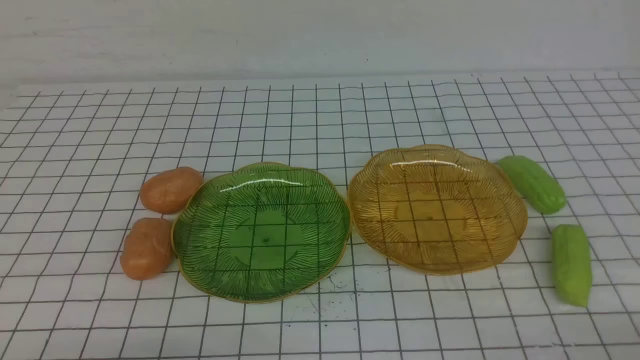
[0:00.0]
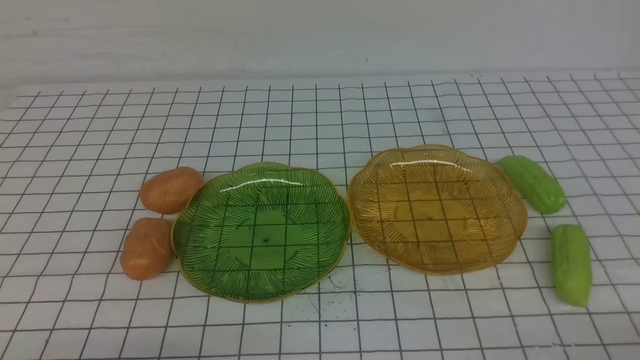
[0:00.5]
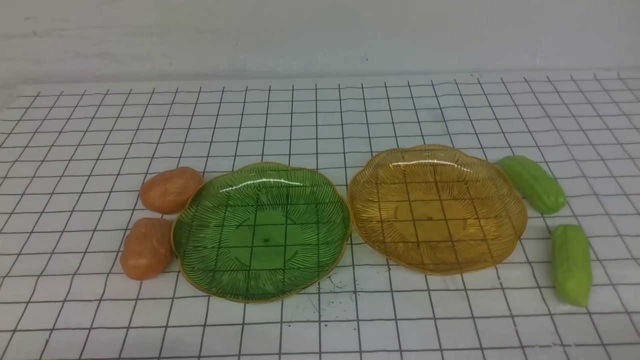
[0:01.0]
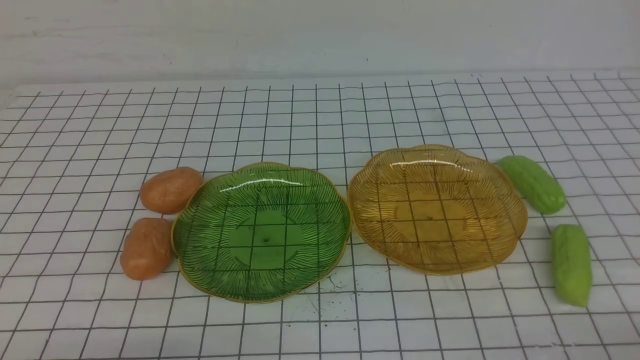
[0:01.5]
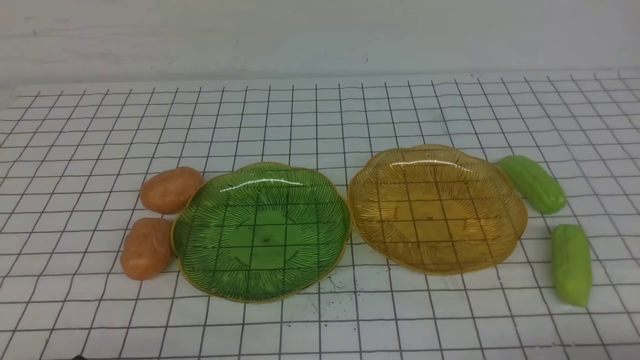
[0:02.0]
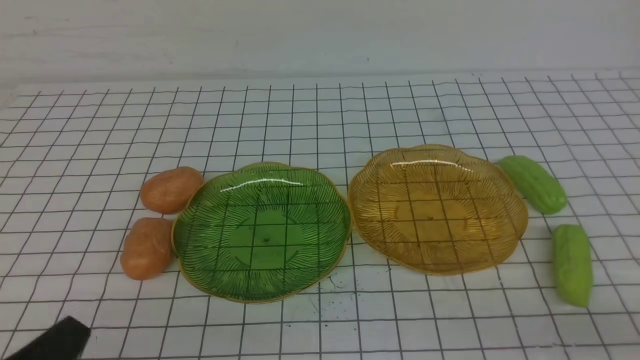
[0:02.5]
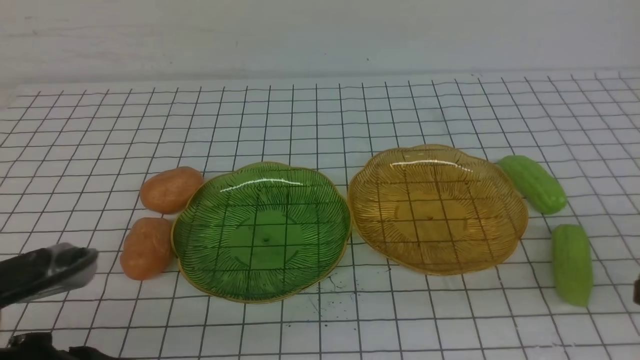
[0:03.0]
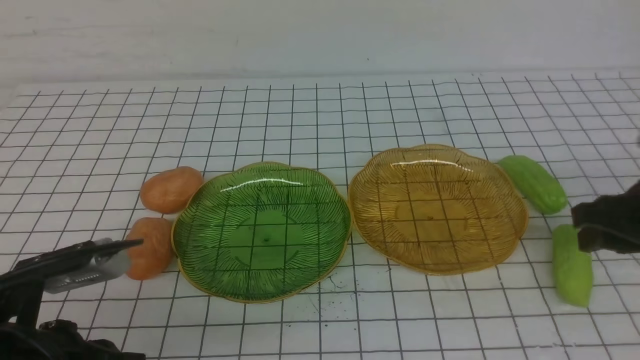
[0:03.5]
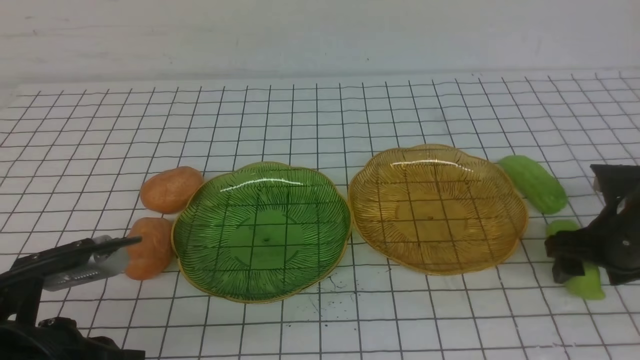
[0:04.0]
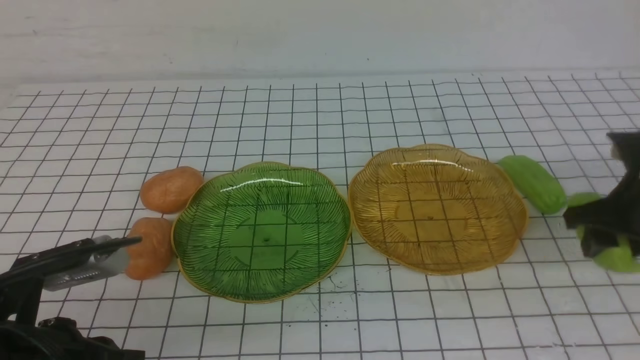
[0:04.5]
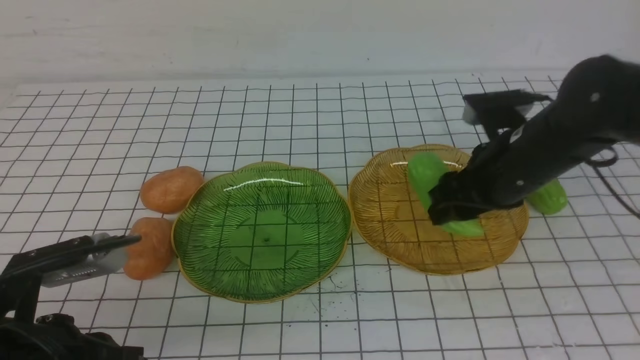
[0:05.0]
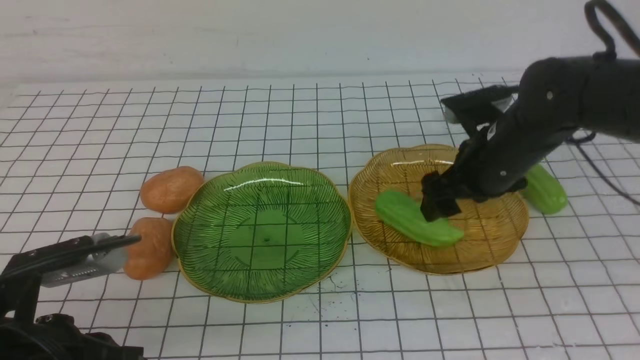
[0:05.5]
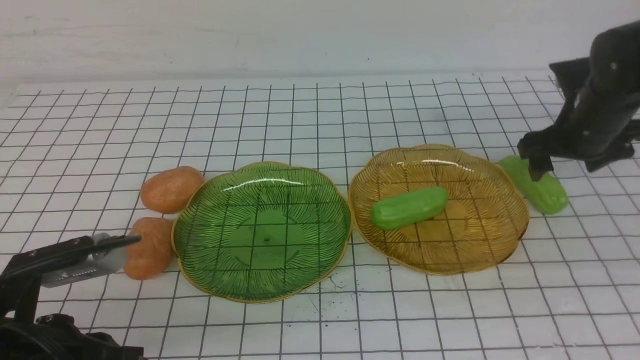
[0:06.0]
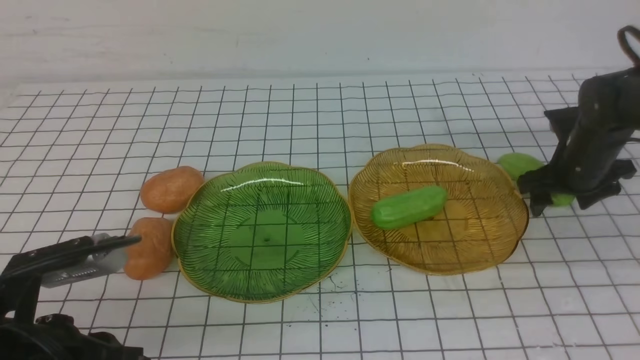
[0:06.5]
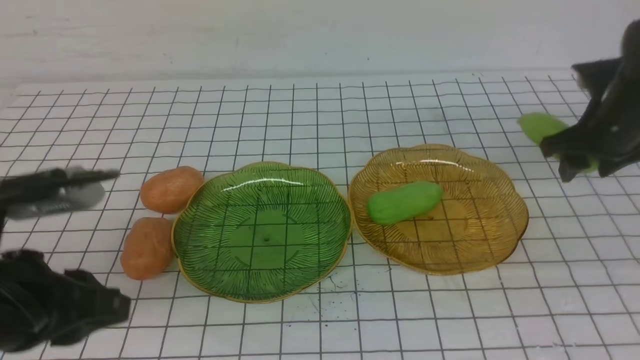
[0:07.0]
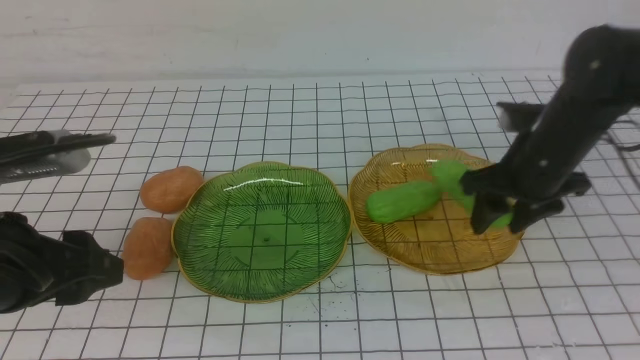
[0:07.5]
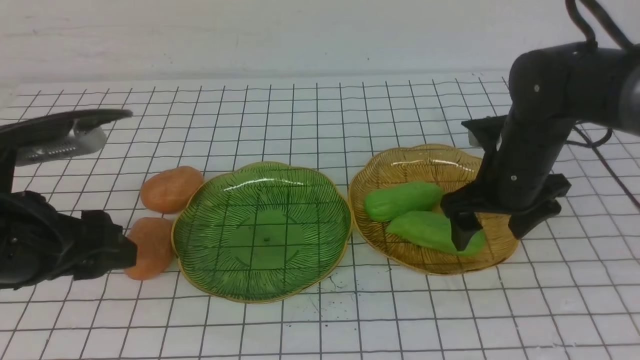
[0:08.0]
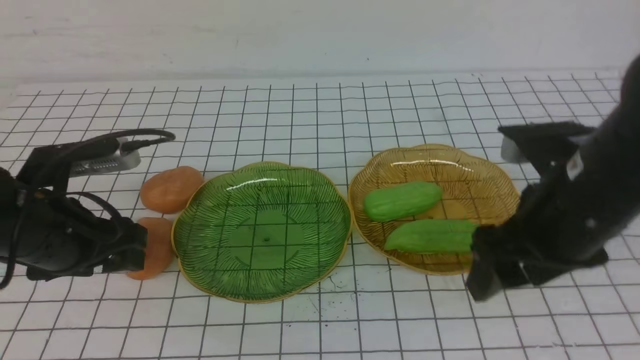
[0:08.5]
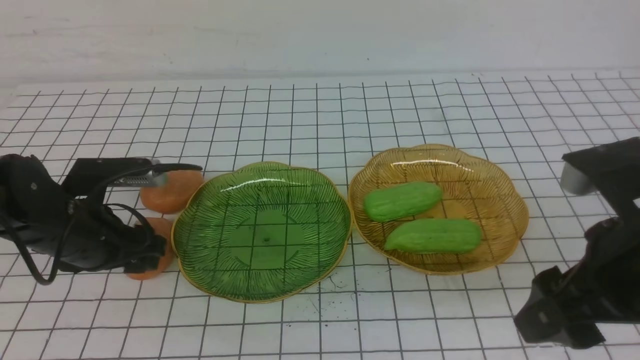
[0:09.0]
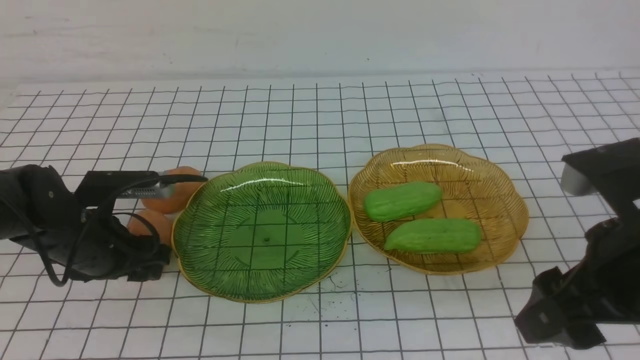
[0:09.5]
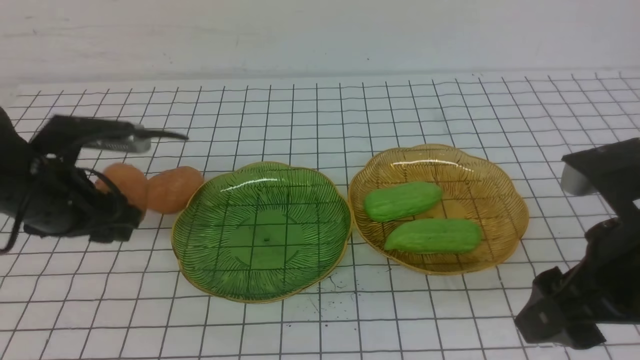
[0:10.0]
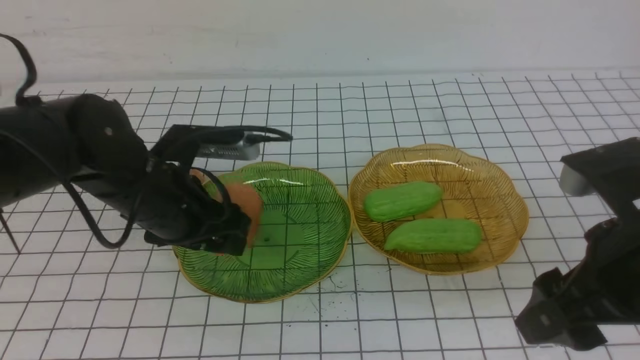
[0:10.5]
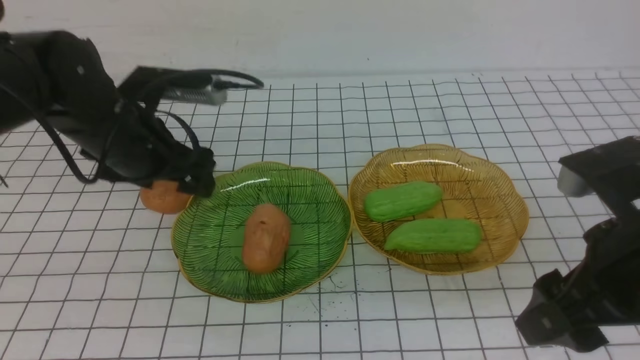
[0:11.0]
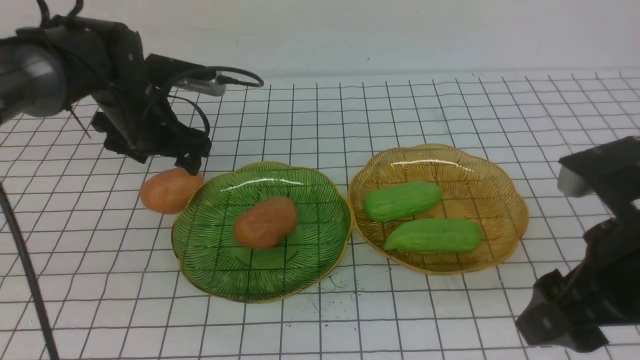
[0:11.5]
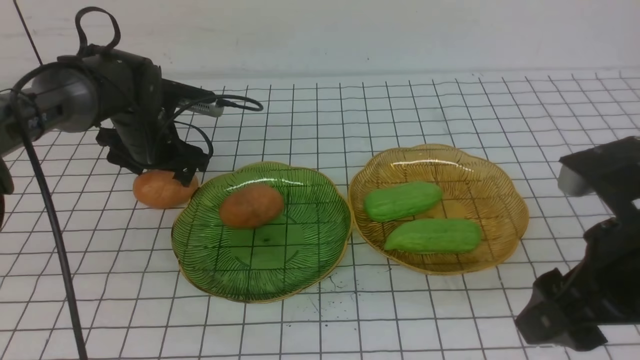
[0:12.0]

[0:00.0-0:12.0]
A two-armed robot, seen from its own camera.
Step, 0:00.0 to 0:07.5: use the left arm to grab a chayote and put it into the left plate.
Step, 0:08.0 to 0:10.5: Grab a potato with your left arm and put it on the left plate.
0:02.0 to 0:04.0: The right gripper travels forward by some 25 cm, and opens up. Meanwhile the left gripper goes some 10 cm forward and upward.
0:04.0 to 0:06.0: The right gripper travels forward by approximately 10 cm, and travels to the left and back again, roughly 10 cm each way.
0:06.0 to 0:08.0: The right gripper travels to the left and backward by about 10 cm, and closes and opens again; the left gripper goes roughly 10 cm forward and upward, and opens its fingers.
0:08.0 to 0:10.0: The right gripper shifts some 20 cm backward and upward; the left gripper travels forward by some 10 cm.
0:10.0 to 0:12.0: The left gripper heads forward, covering about 15 cm.

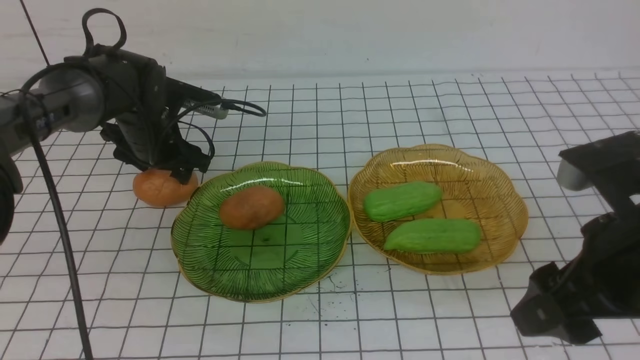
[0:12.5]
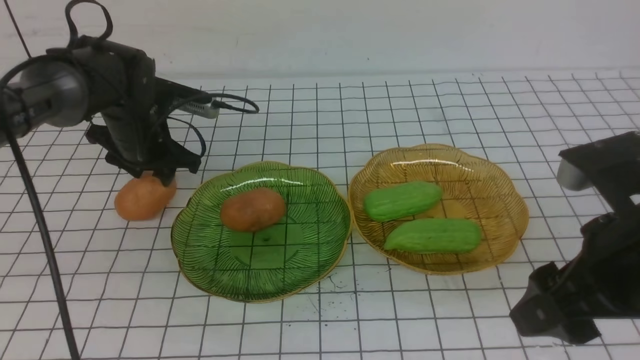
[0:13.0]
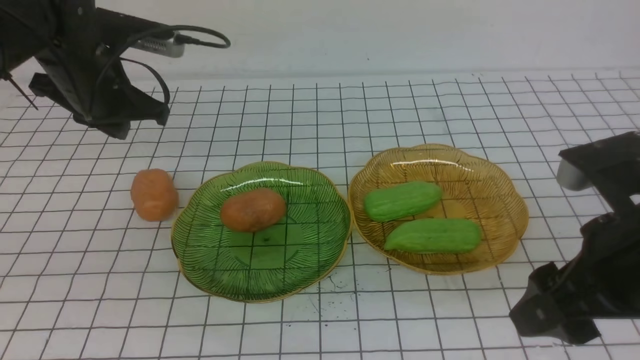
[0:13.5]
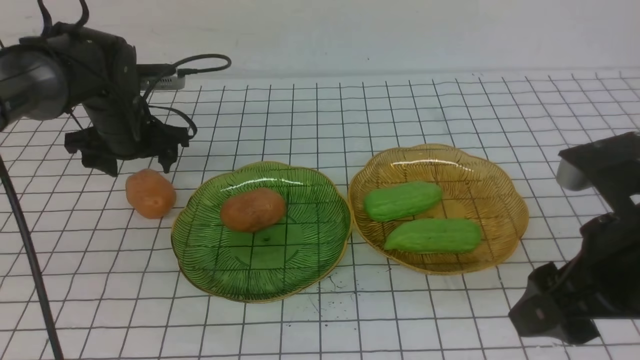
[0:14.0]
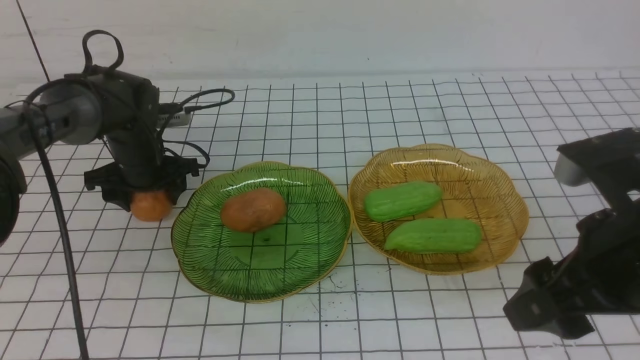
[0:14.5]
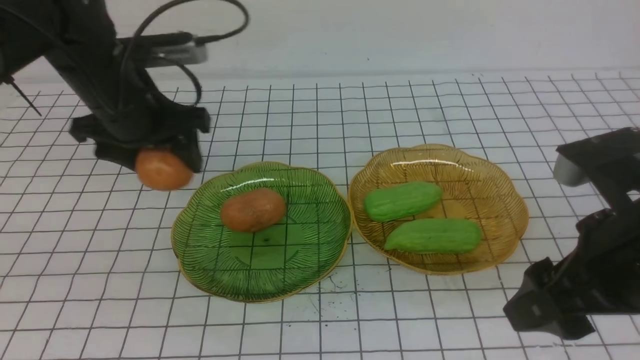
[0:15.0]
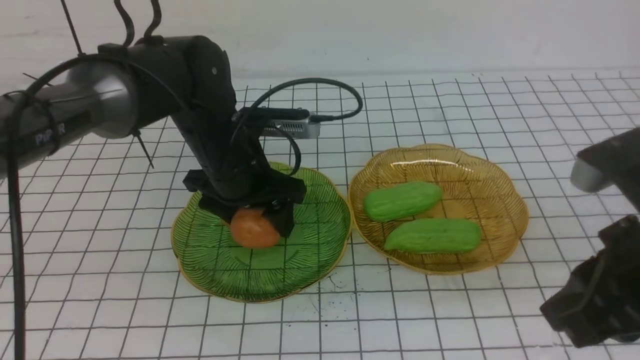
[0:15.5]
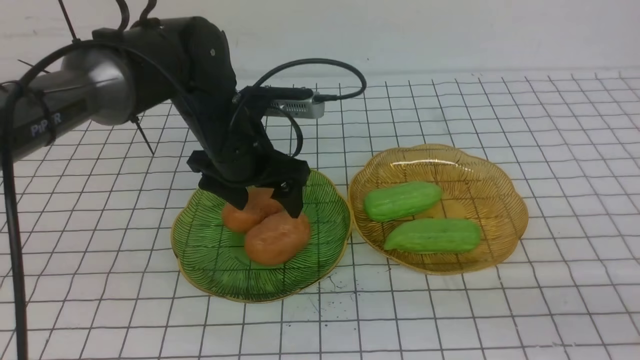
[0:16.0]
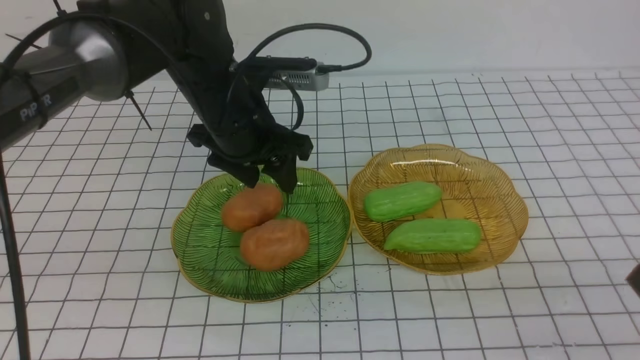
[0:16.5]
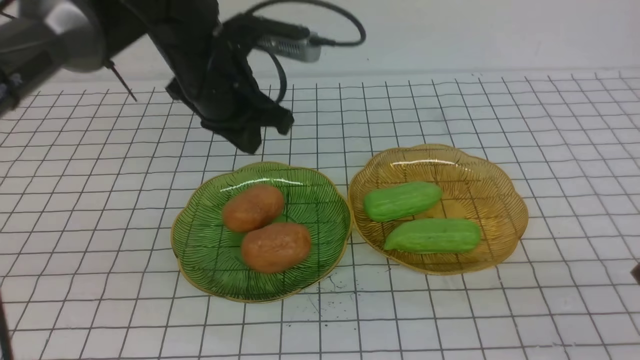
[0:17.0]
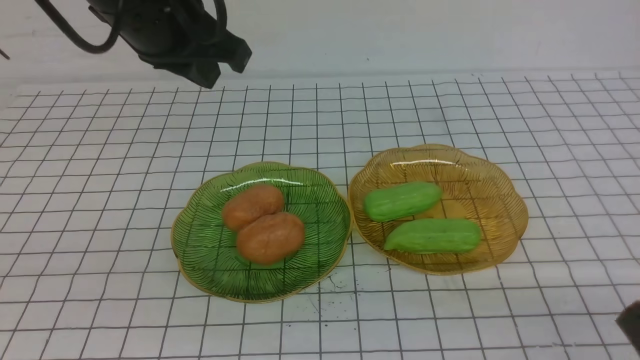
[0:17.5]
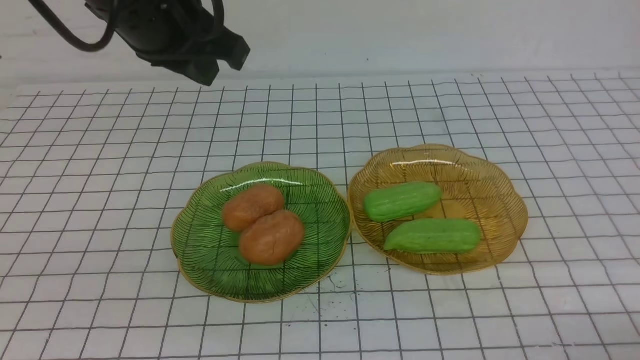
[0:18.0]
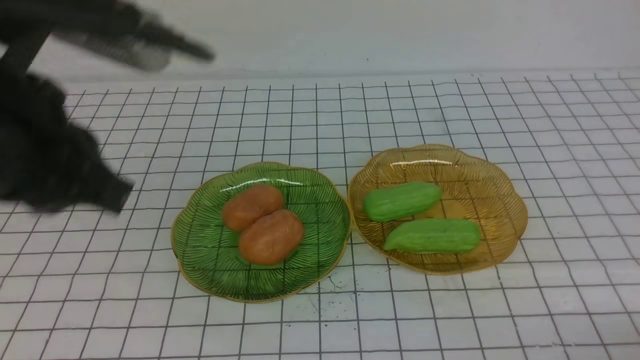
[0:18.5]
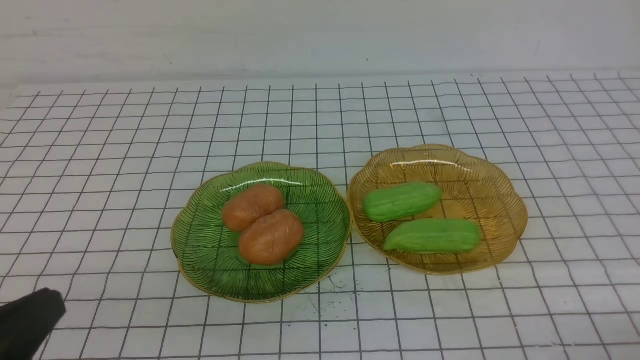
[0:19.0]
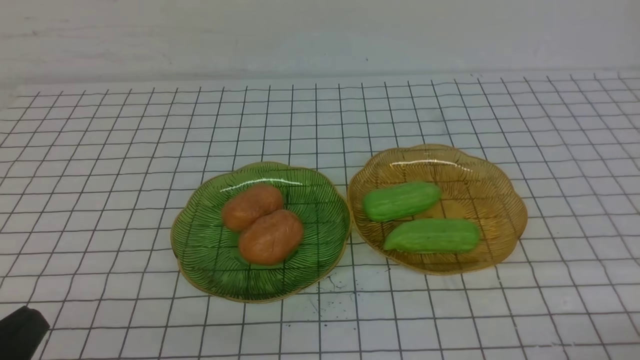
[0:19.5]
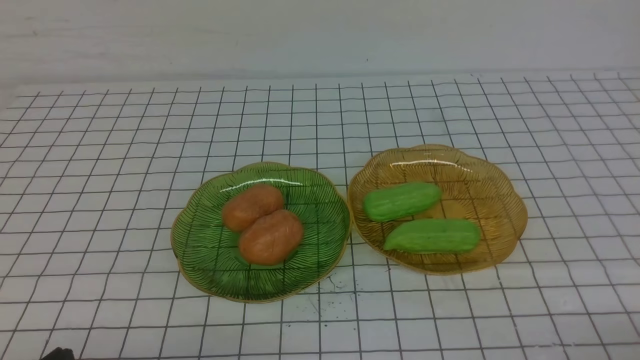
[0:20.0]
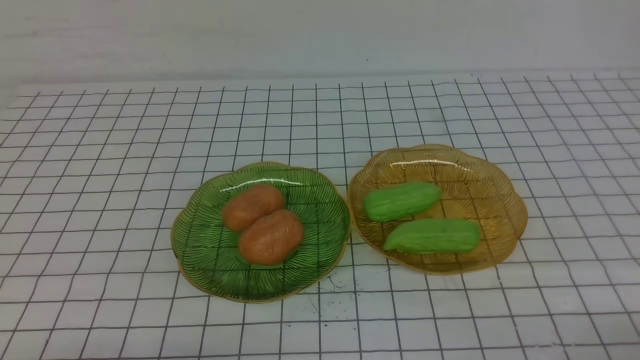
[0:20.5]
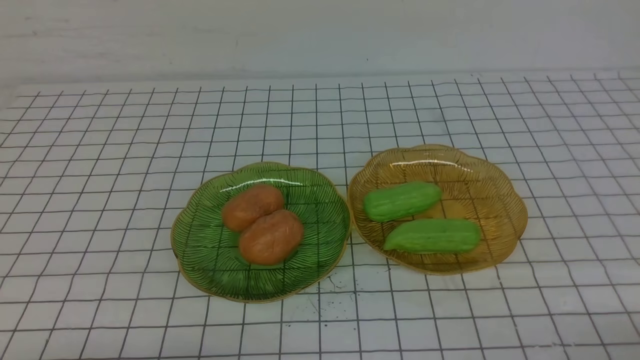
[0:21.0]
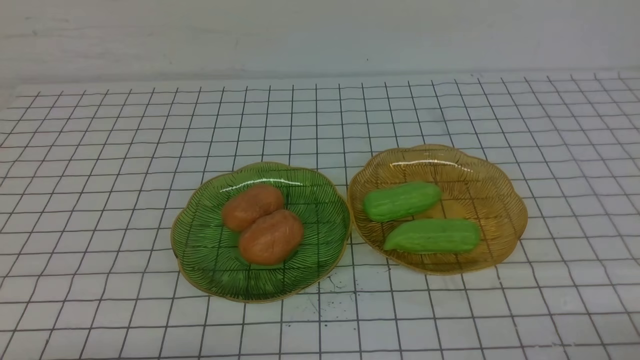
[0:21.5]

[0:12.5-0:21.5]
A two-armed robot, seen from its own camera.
Step, 0:12.5 to 0:15.5: Grab a potato with your left arm and put it on the left plate.
0:12.5 to 0:14.5: The left gripper moves approximately 10 cm upward and comes back, and closes and opens again.
0:14.5 to 0:17.0: The right gripper shifts approximately 15 cm backward, to the right and downward, and closes. Meanwhile the left gripper travels upward, to the right and backward by about 20 cm, and closes its fingers.
0:17.0 to 0:19.5: The right gripper shifts roughly 10 cm downward, while the left gripper is displaced backward by approximately 35 cm.
0:19.5 to 0:21.5: The left gripper heads downward, covering about 10 cm.
